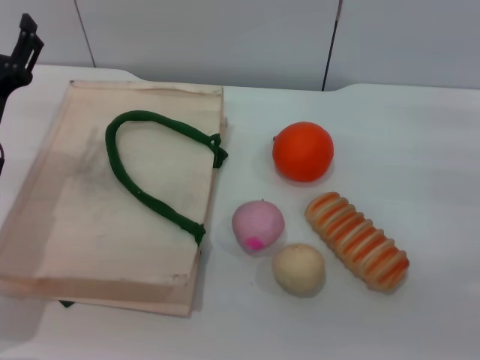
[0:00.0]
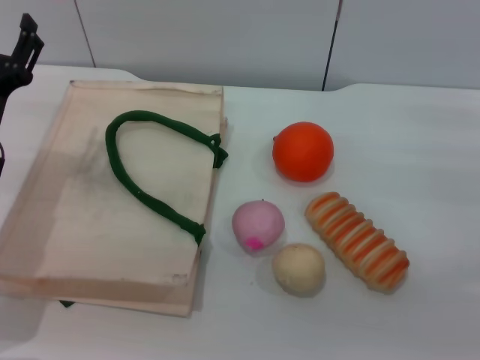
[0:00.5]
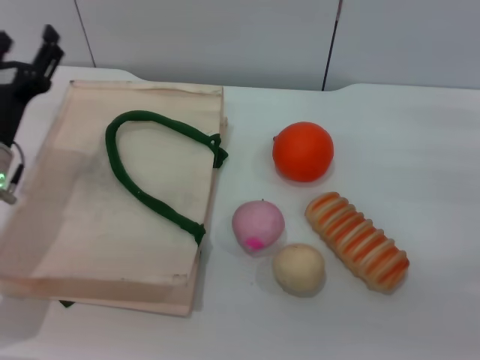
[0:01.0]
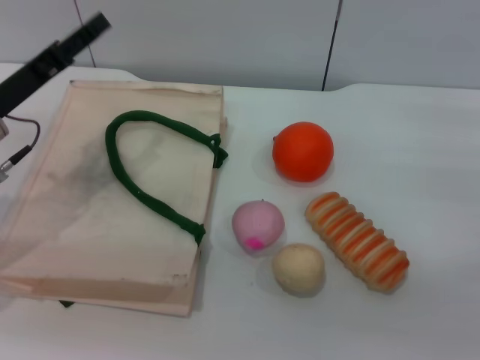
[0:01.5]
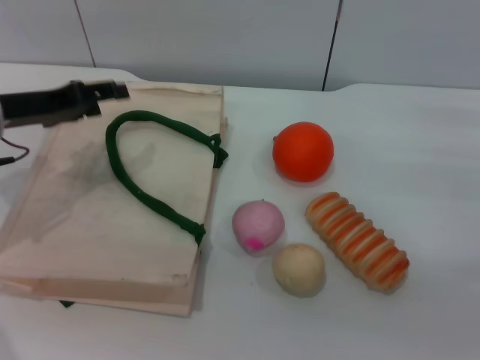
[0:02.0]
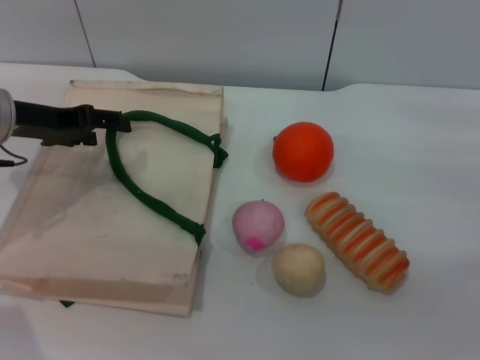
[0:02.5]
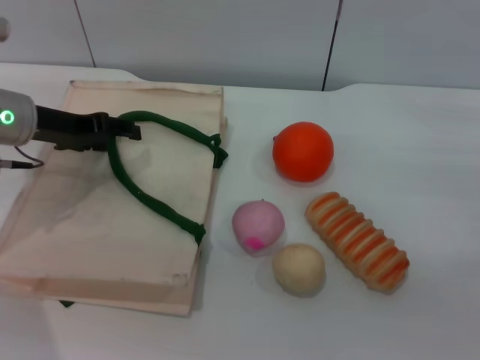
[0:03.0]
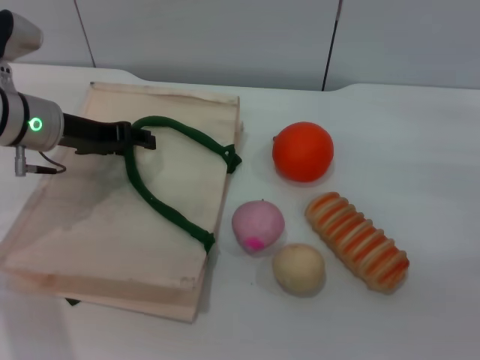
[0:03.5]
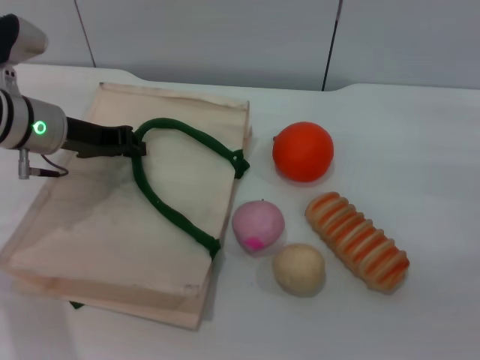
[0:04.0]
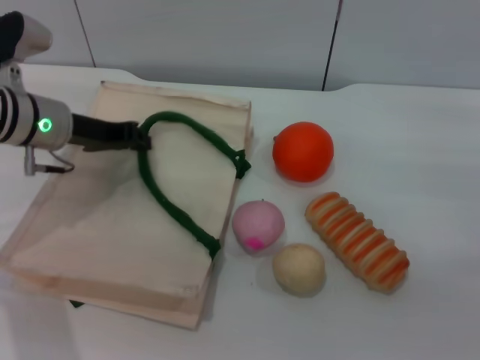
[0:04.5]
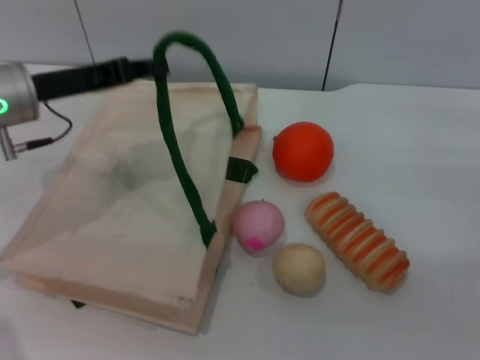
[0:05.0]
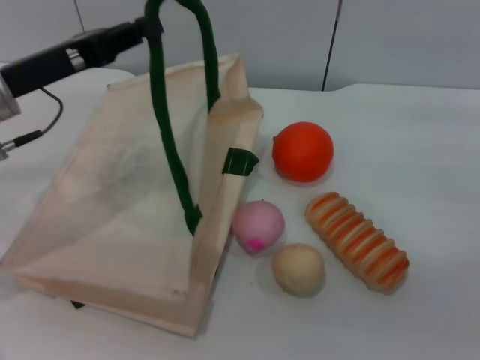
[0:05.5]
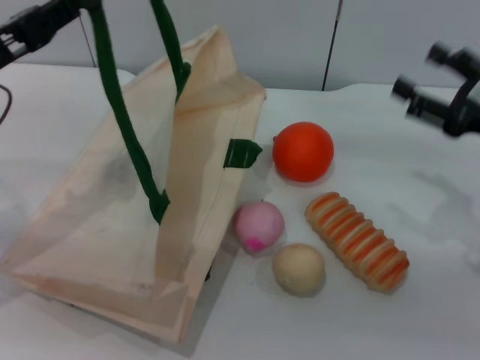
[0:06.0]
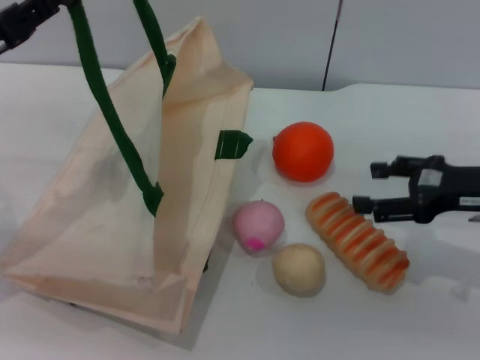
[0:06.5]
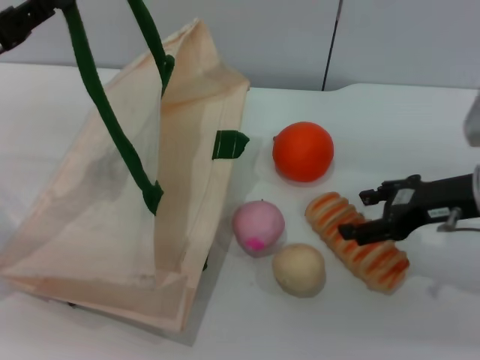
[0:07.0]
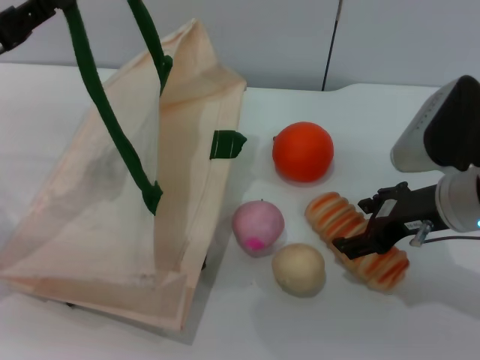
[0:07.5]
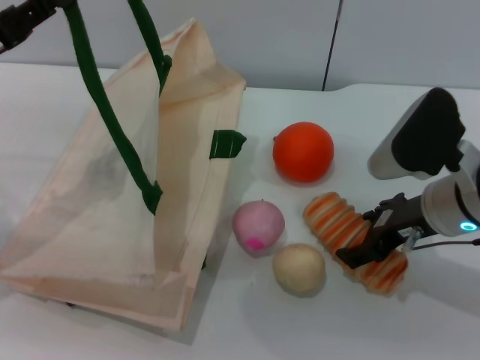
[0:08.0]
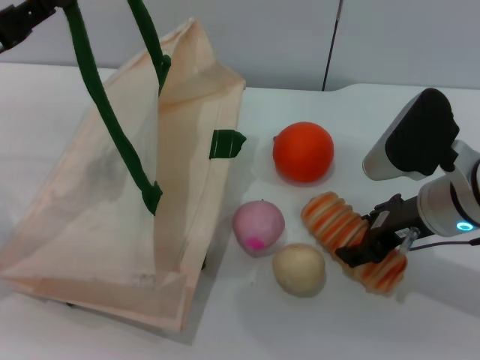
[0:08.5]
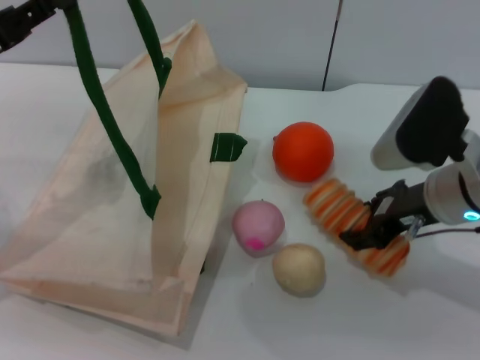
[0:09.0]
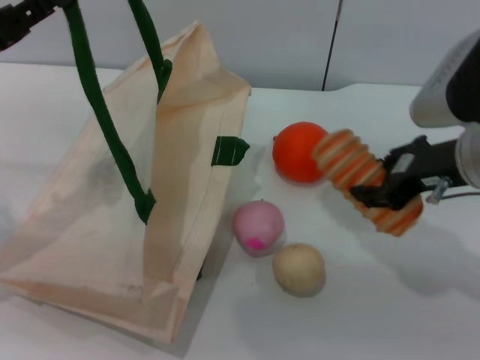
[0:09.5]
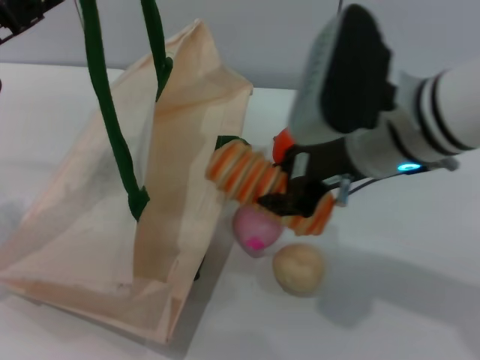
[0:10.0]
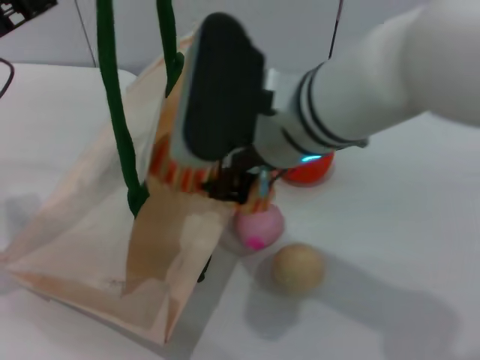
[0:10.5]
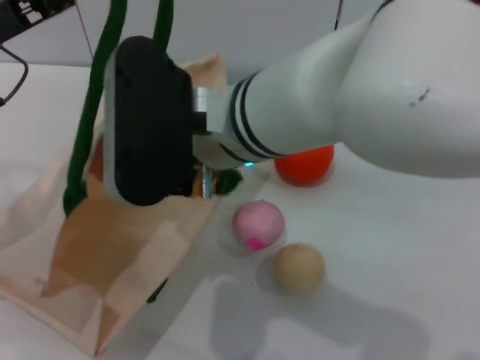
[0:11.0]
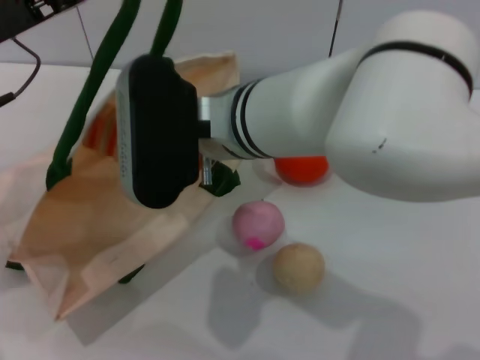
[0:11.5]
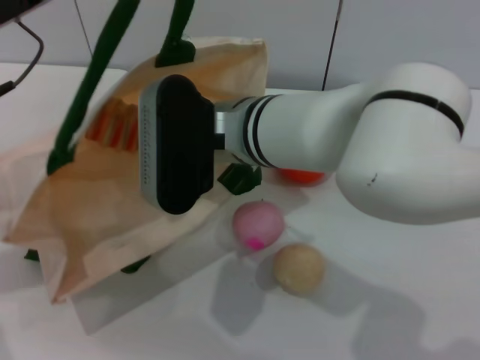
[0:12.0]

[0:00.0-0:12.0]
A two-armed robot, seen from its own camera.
Task of the whole recording: pick up the bread and egg yolk pastry from the table and place it in the white handbag.
Step, 0.0 to 5.5 s: Lift the woven bag with the left gripper to open it.
Step, 6.0 to 9.5 s: Pick up the bread with the right gripper.
0.0 to 2.0 s: The left gripper goes some 10 cm upward and forward.
2.0 to 4.0 s: The left gripper moves roughly 5 cm, and closes up.
4.0 to 6.0 s: The left gripper goes about 10 cm backward and upward, and closes its fingers.
6.0 to 8.0 s: The right gripper heads to the left, covering about 10 cm.
8.0 to 10.0 s: The right gripper goes roughly 10 cm to the left and upward, and closes up.
10.0 to 12.0 s: The left gripper changes place by approximately 5 cm; the right gripper moves to the left, about 10 cm.

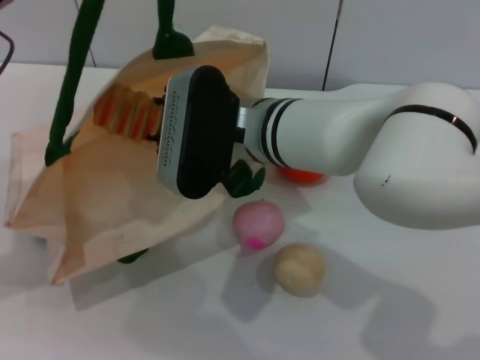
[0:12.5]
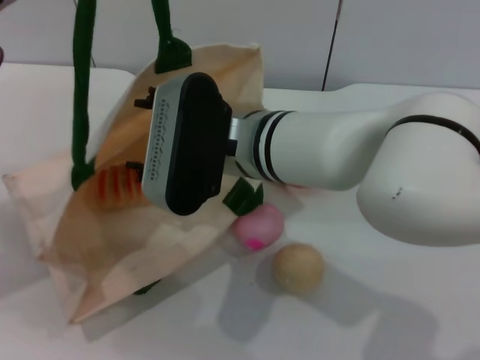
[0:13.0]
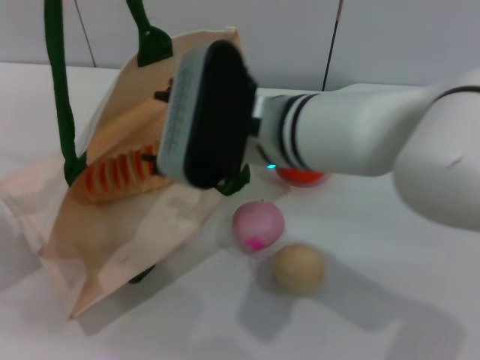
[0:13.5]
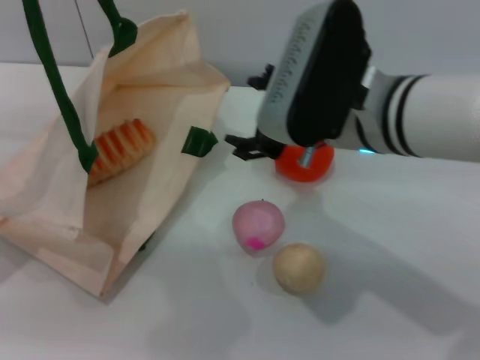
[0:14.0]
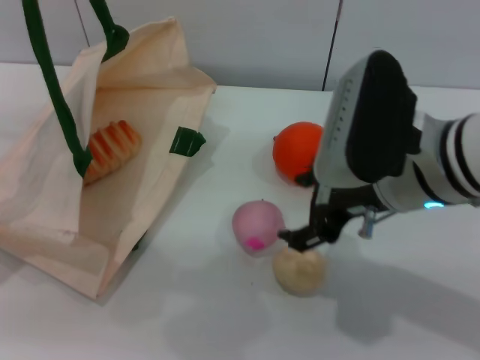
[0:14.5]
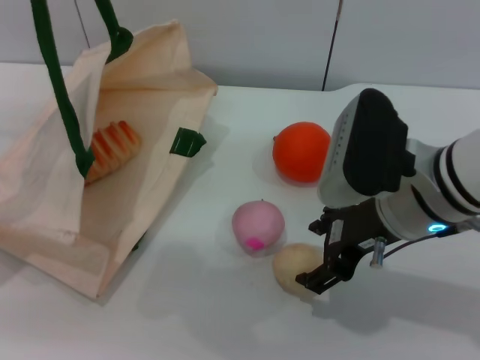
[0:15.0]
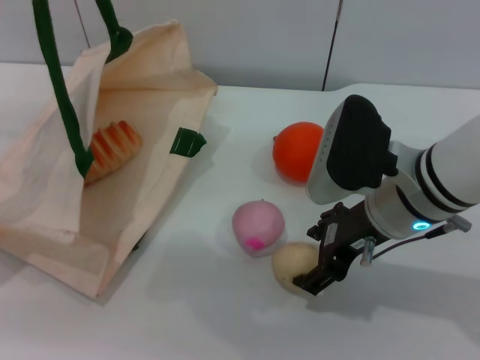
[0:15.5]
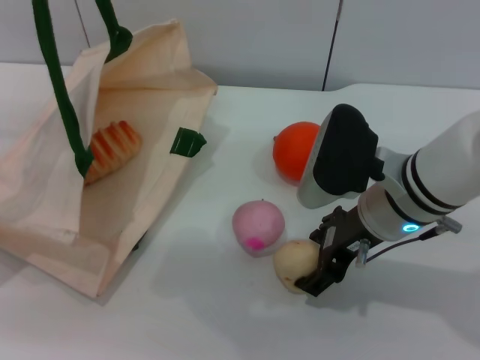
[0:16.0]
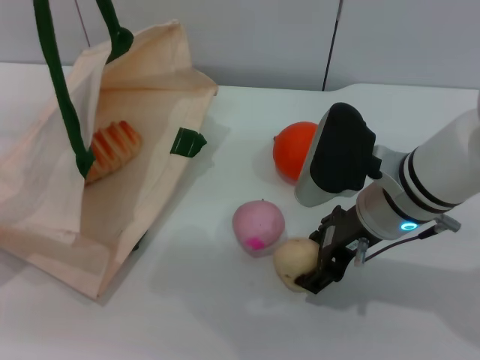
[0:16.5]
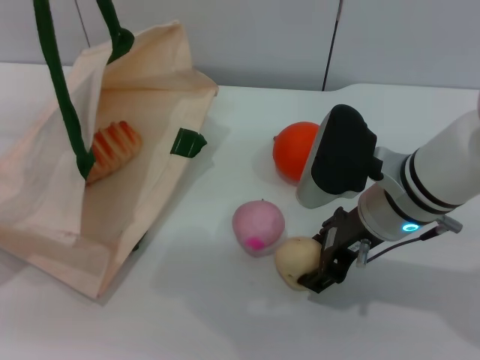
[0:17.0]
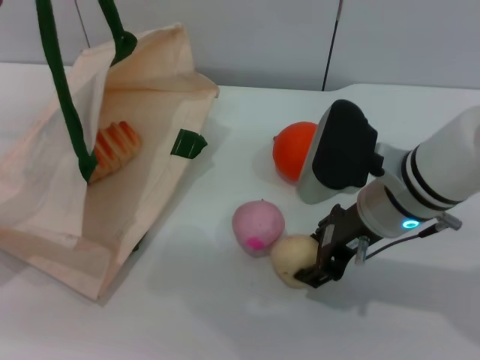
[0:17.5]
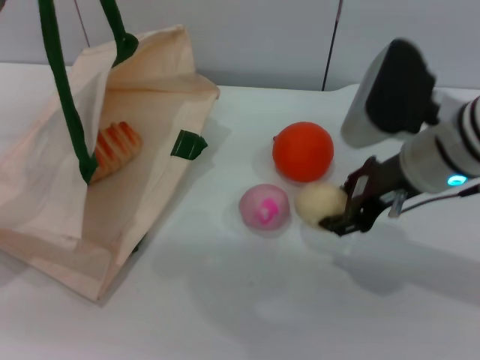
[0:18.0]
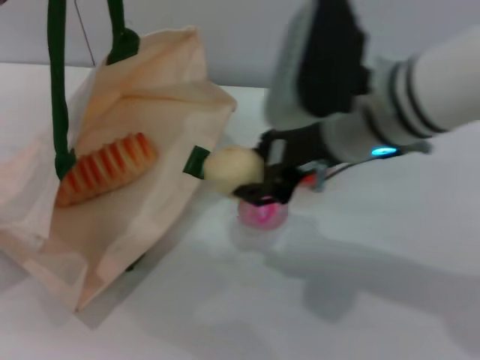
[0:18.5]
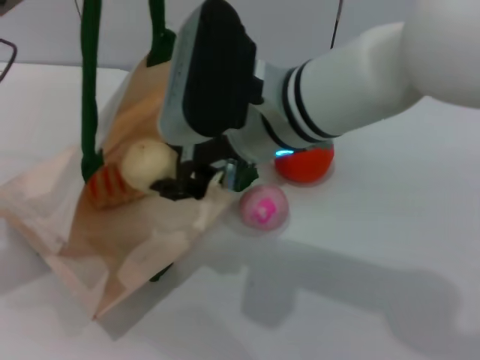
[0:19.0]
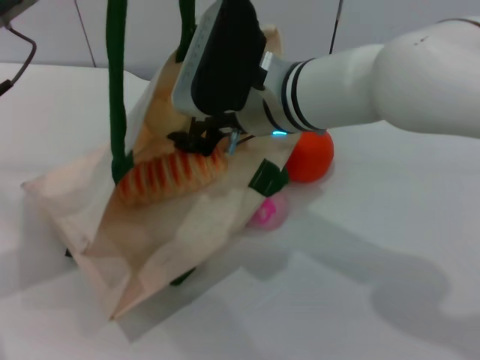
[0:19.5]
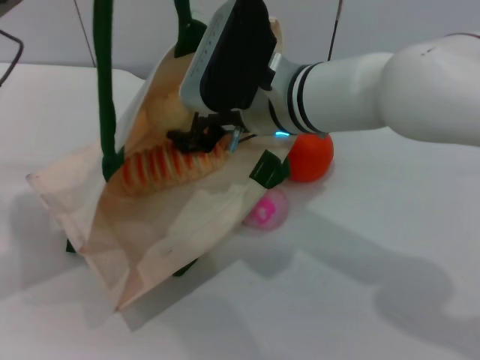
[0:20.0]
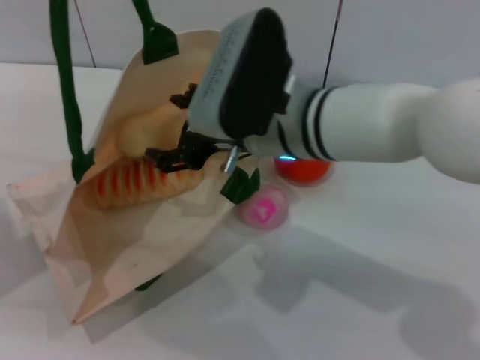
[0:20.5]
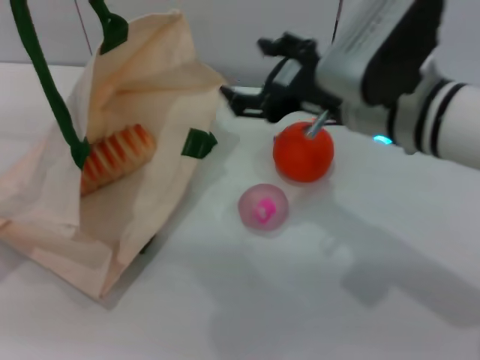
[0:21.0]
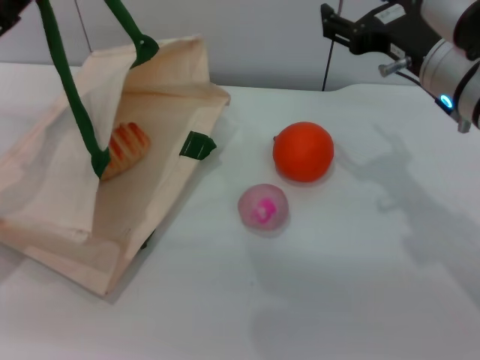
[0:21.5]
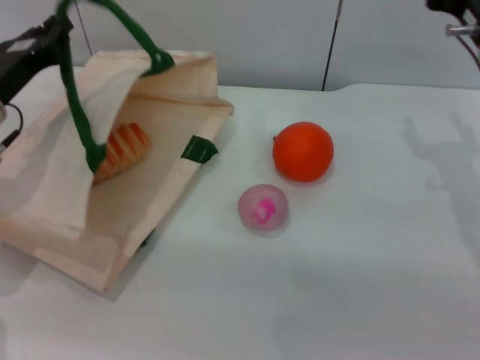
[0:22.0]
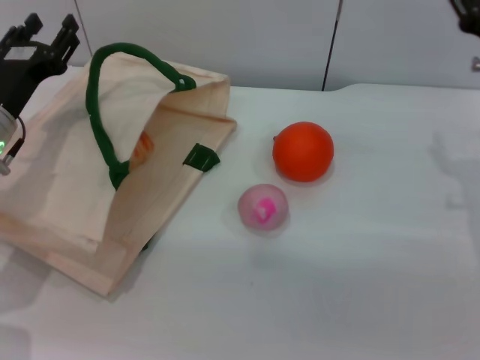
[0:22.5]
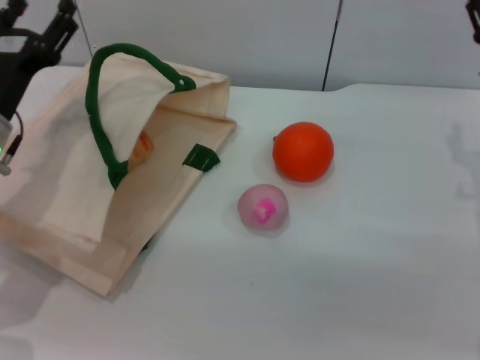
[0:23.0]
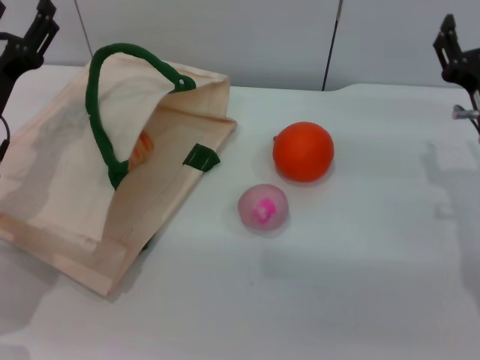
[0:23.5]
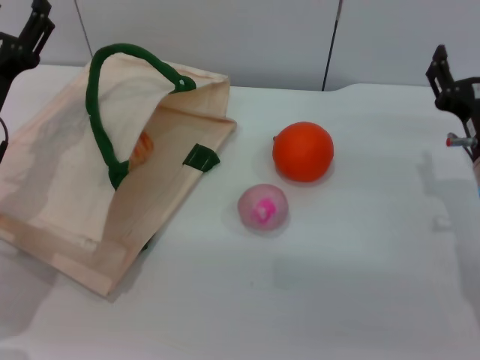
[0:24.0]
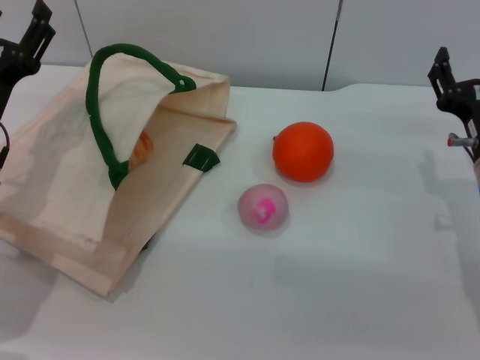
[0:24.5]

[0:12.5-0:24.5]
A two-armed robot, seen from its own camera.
Task of the whole recording: pick up the bread and egg yolk pastry from the table and place it in the white handbag.
Step, 14.0 to 18.0 s: Pick up the egg yolk pastry with the right gripper.
Step, 18.5 to 20.5 s: Place the egg yolk pastry into the woven bag with the right gripper.
Step, 21.0 to 23.5 s: Lower the woven bag with the left gripper to close it.
12.5 to 14.5 s: The left gripper shifts by roughly 5 cm, while the right gripper goes roughly 15 cm to the right, and opens.
14.5 to 16.5 s: The right gripper is displaced downward by some 5 cm.
16.5 to 18.5 s: The right gripper heads upward, covering about 10 cm, and closes.
18.5 to 20.5 s: The right gripper shifts some 5 cm to the left, and opens its fingers.
20.5 to 22.5 s: The right gripper shifts about 20 cm to the right, while the left gripper heads downward, covering roughly 10 cm, and opens up.
22.5 to 24.5 s: The right gripper travels downward by about 5 cm, while the left gripper opens up.

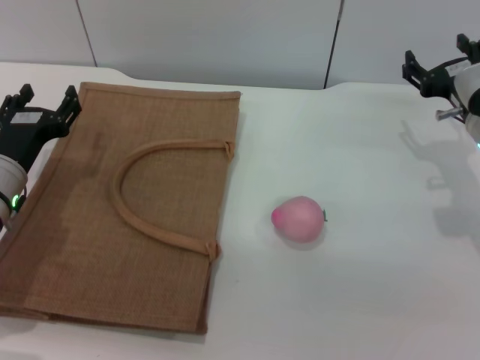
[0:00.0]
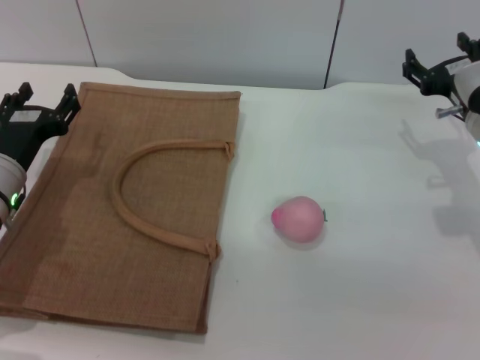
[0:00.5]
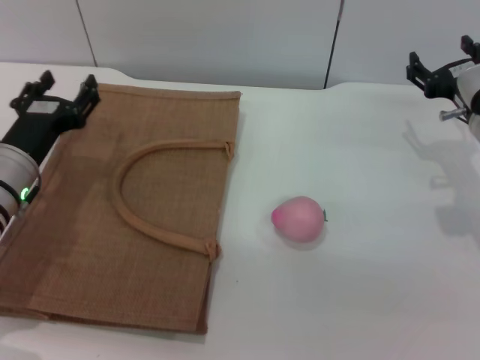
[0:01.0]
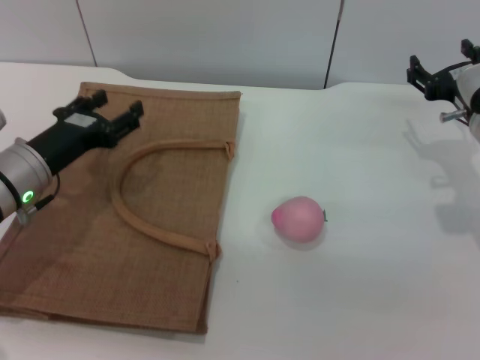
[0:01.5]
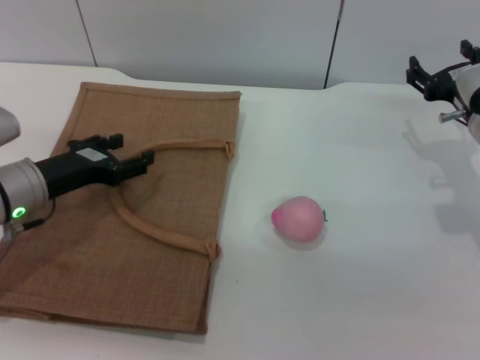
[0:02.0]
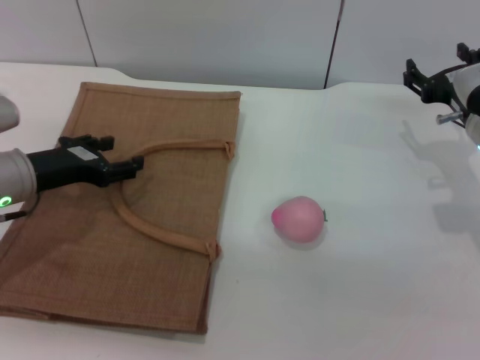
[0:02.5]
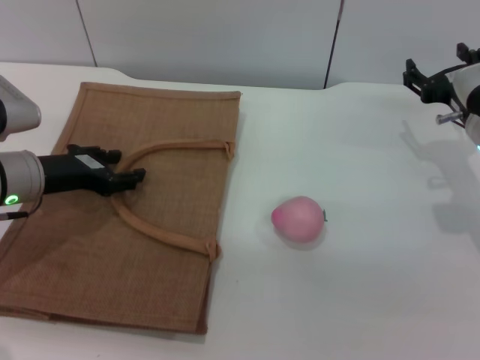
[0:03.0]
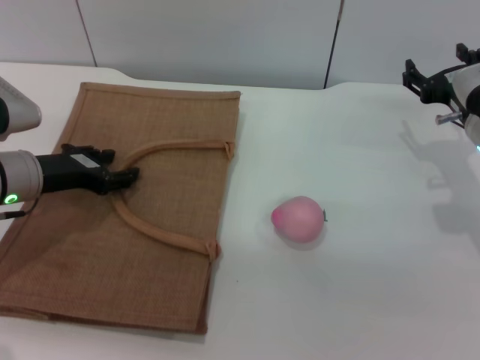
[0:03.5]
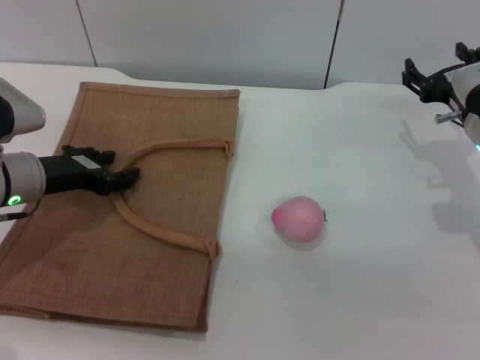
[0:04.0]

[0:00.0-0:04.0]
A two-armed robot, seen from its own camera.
Task of the whole recording: pick up the peach from the table and place it in the brown handbag.
2.0 to 4.0 s: The grippers stay close to where they were, moving slightly.
